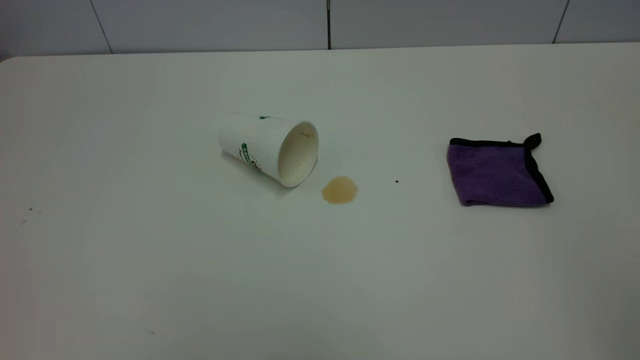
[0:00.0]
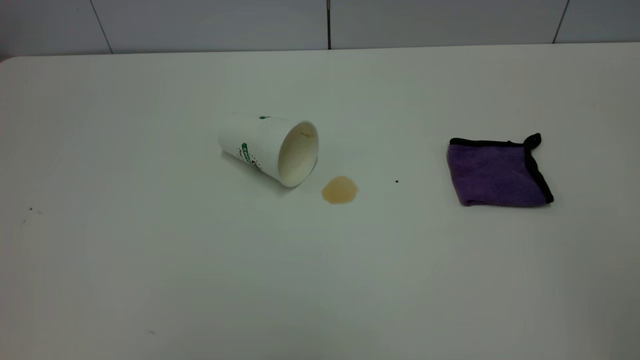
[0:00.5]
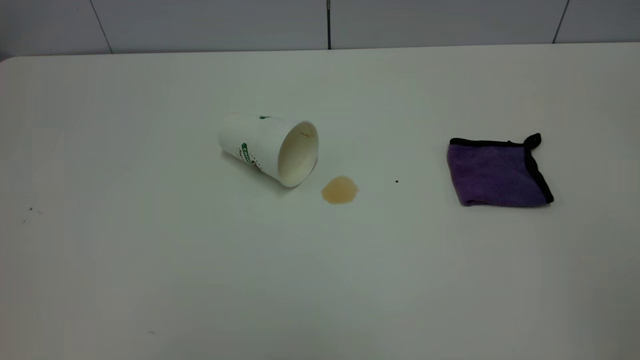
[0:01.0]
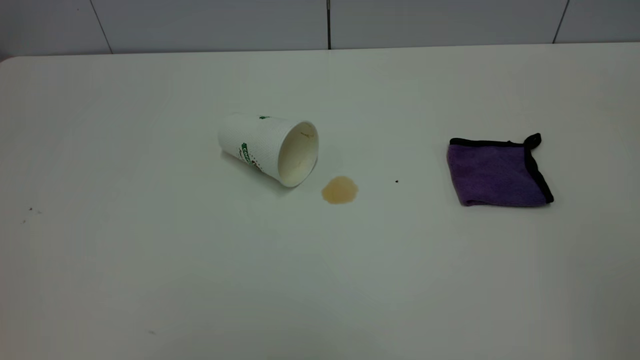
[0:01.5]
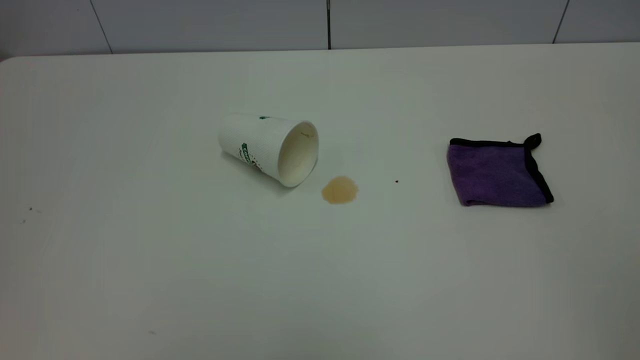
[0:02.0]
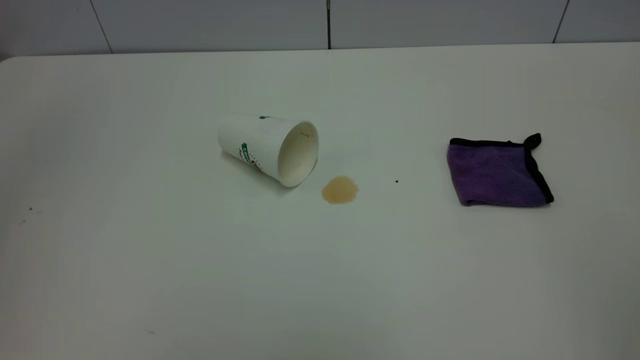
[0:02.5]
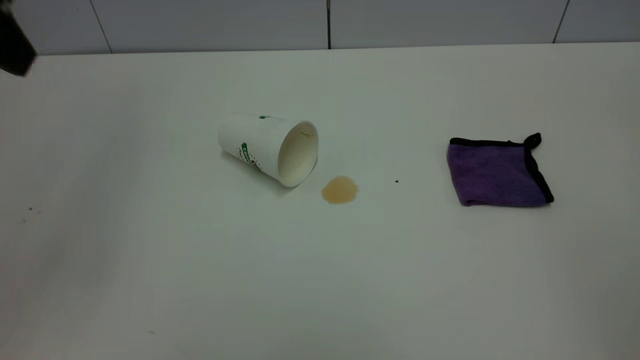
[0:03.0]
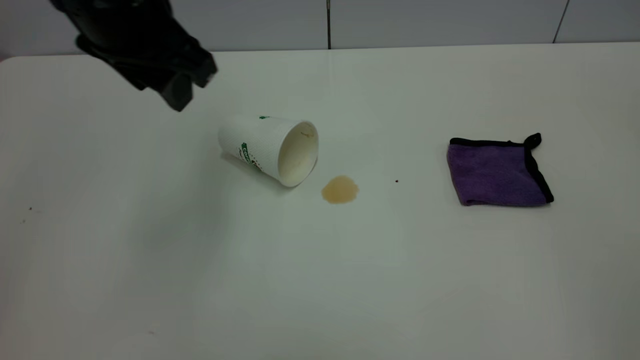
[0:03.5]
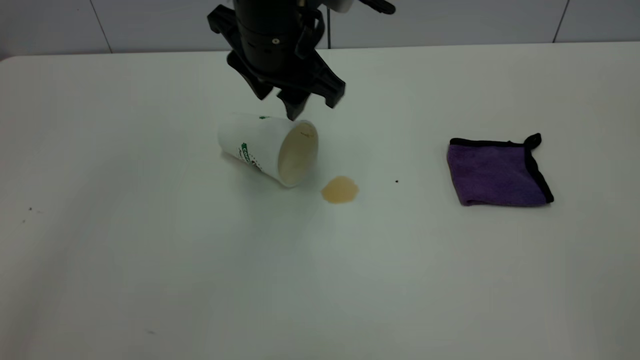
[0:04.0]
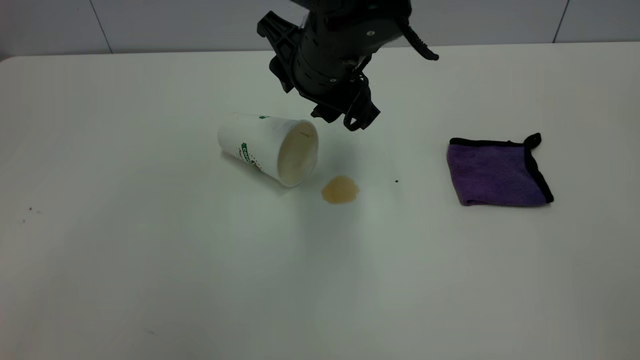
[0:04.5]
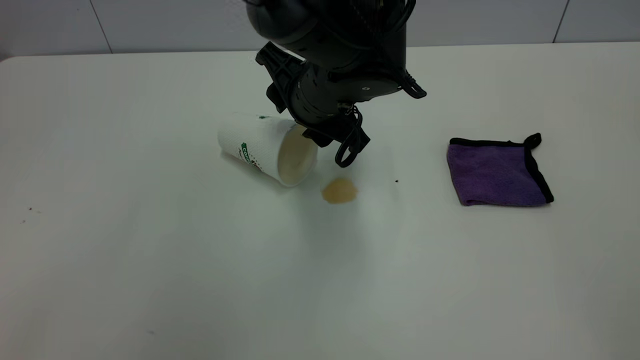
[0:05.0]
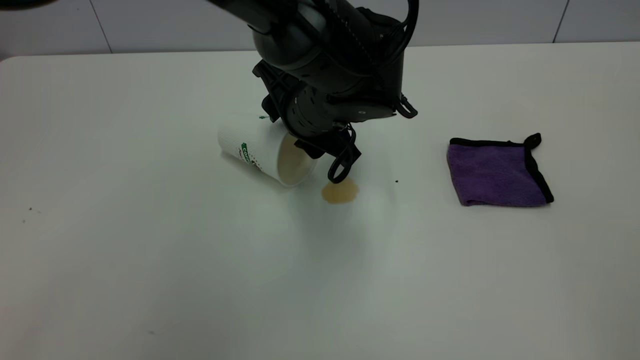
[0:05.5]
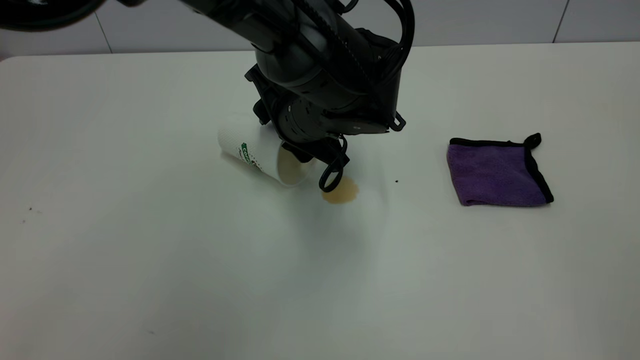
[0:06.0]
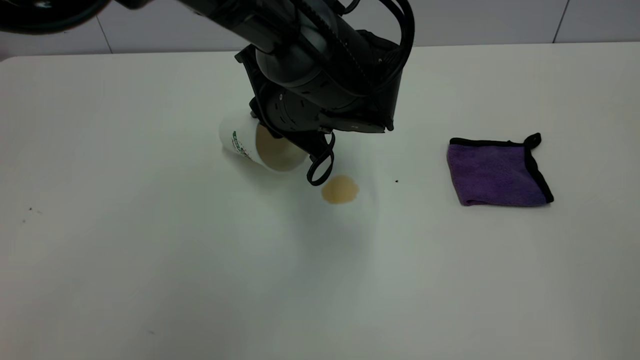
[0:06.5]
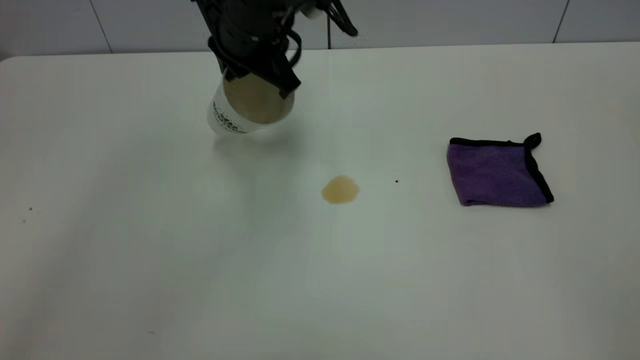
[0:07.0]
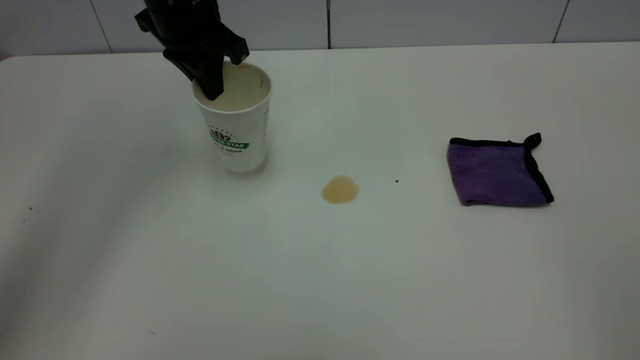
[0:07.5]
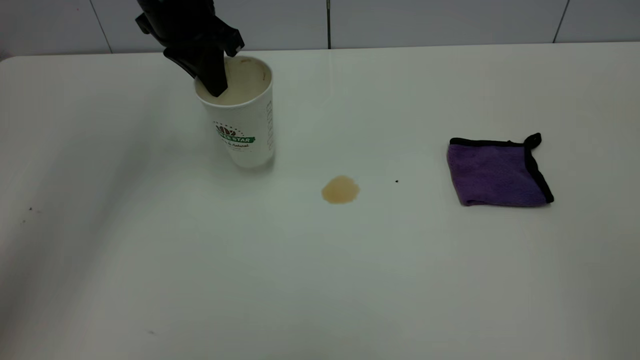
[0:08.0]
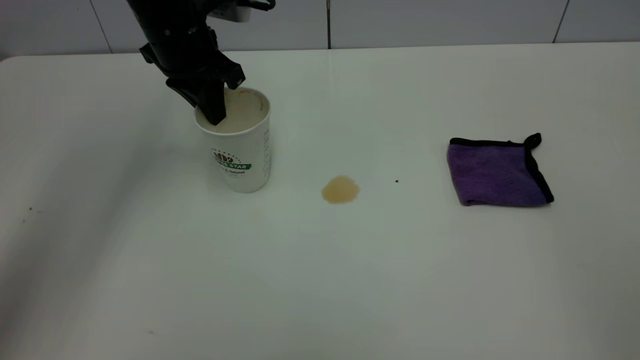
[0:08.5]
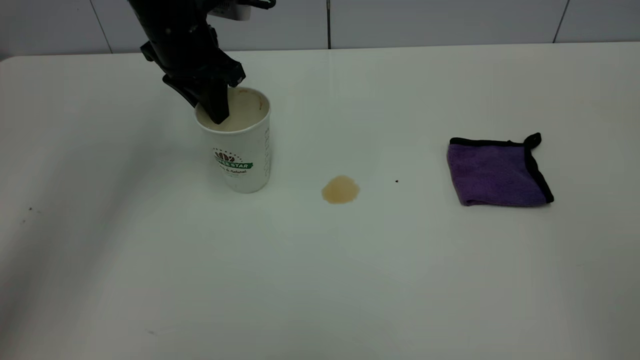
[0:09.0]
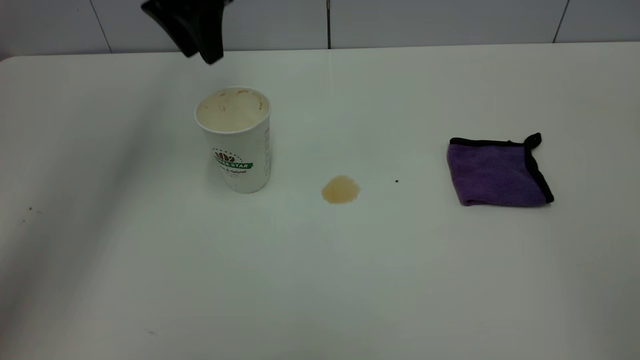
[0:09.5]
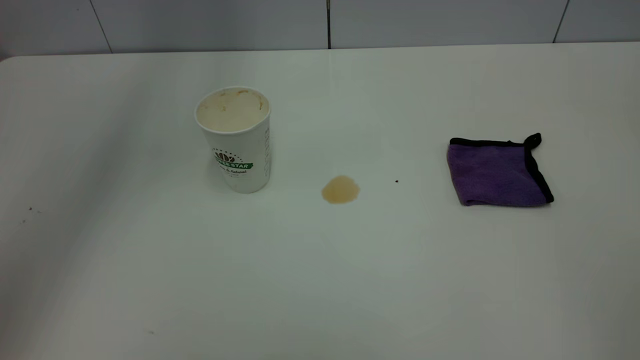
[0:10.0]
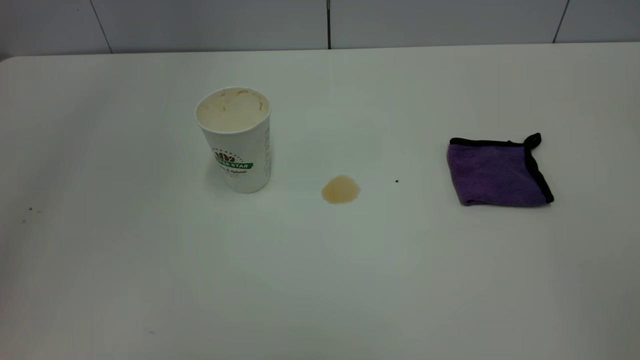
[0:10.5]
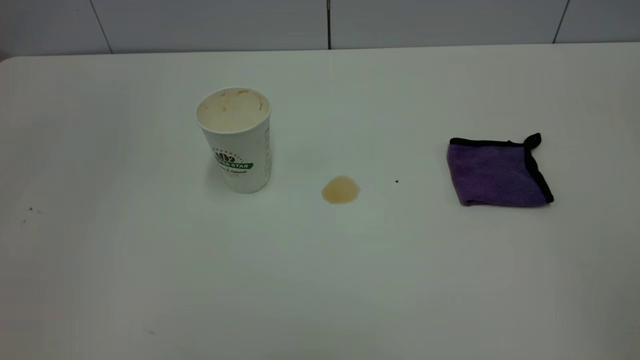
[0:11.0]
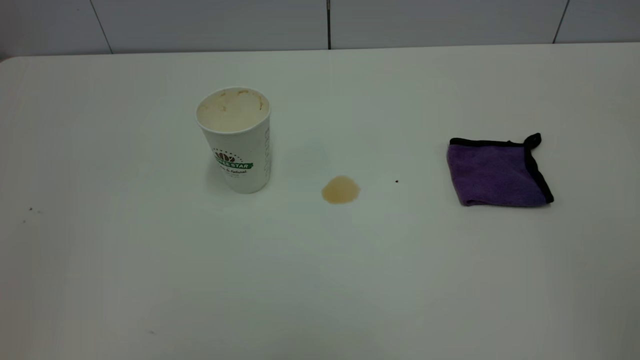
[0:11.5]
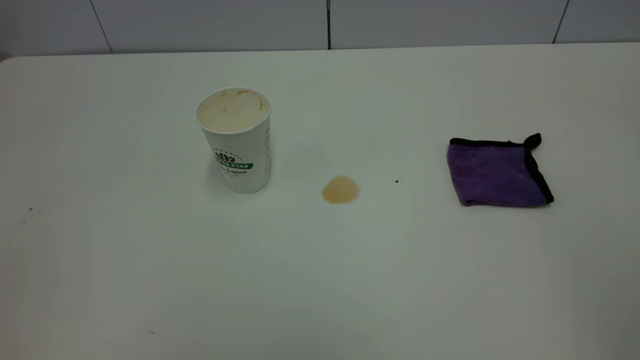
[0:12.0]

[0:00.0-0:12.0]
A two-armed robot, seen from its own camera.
Task of the whole recording: the left gripper pick up the fallen cup and place it upright, the right gripper grasp the purple rag and wipe the tea stain on the table, the right gripper put the purple rag back in its original position.
Step, 0:00.0 to 0:09.5: Stand the paper cup upright.
0:02.0 to 0:04.0: The left gripper is displaced forward, to the right and downward by about 50 cm.
0:04.0 to 0:06.0: The left gripper heads downward, covering some 10 cm.
0:06.0 to 0:08.0: The left gripper shifts approximately 20 cm to the left, upward and forward, and closes.
0:08.0 to 0:10.0: The left gripper moves upward, some 25 cm, and opens its fingers.
0:10.0 to 0:12.0: The left gripper heads backward, covering approximately 40 cm.

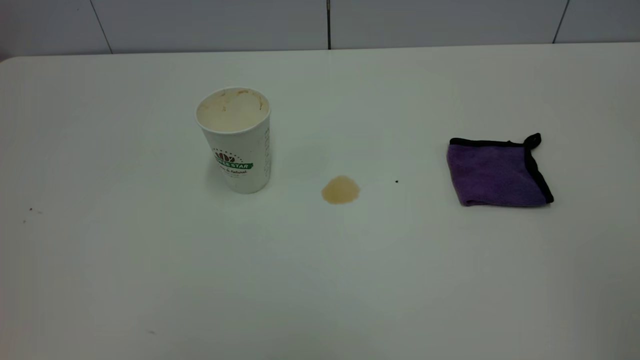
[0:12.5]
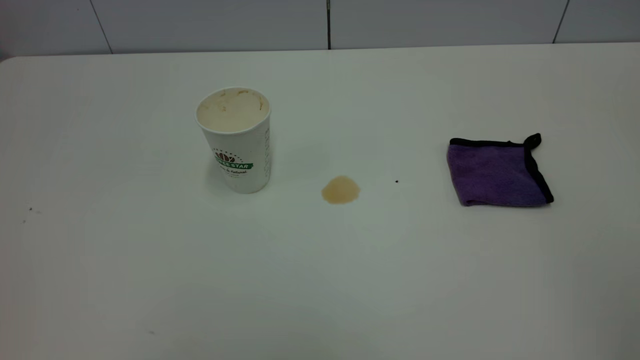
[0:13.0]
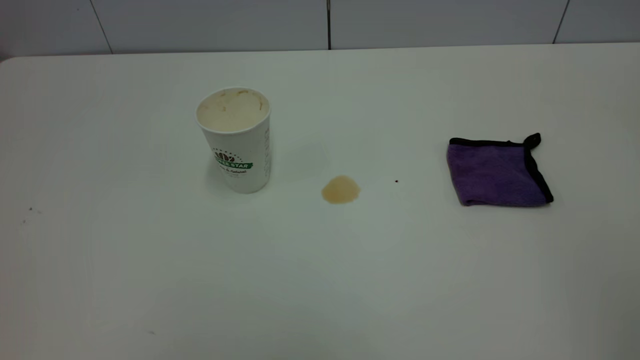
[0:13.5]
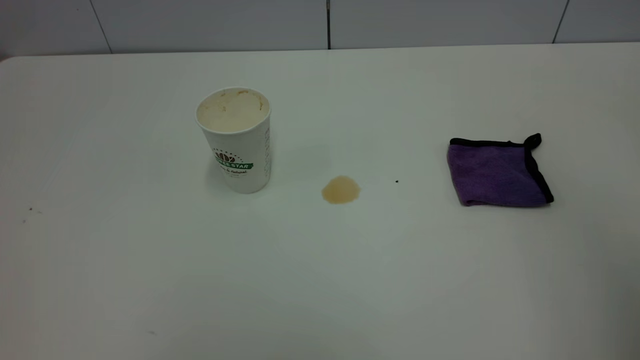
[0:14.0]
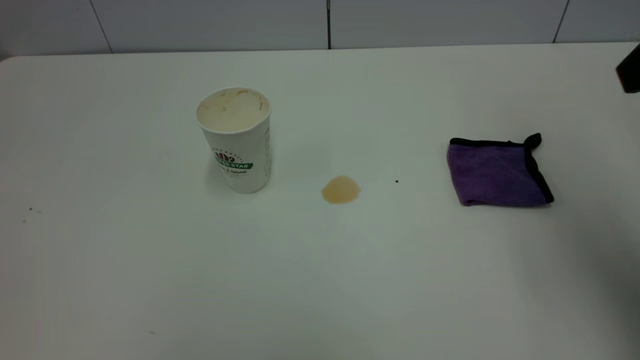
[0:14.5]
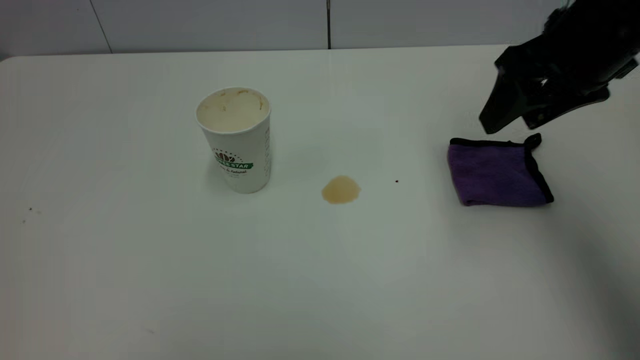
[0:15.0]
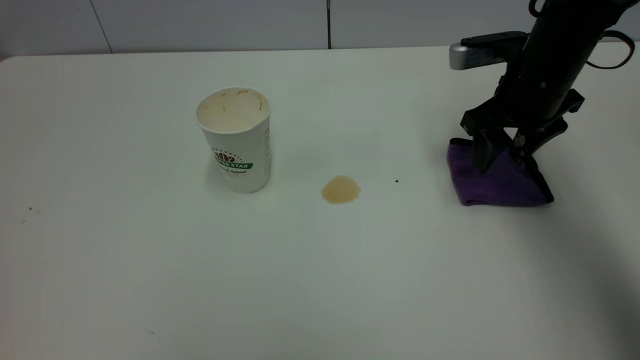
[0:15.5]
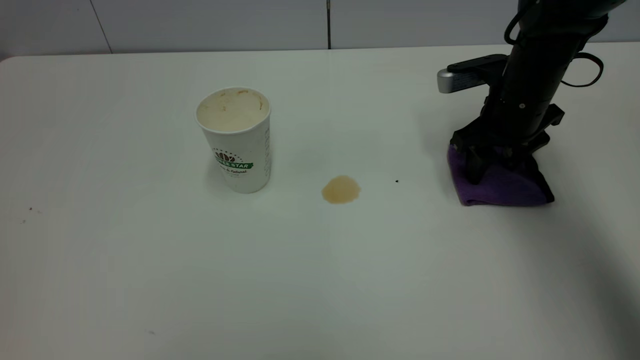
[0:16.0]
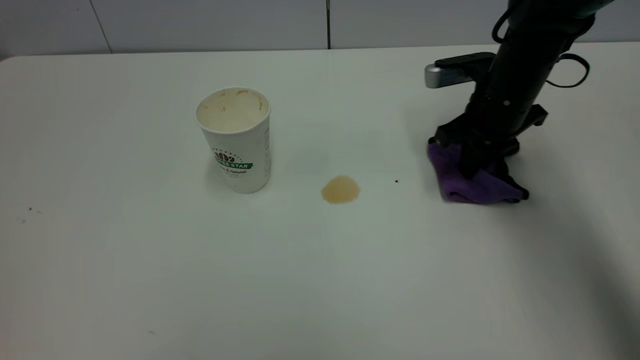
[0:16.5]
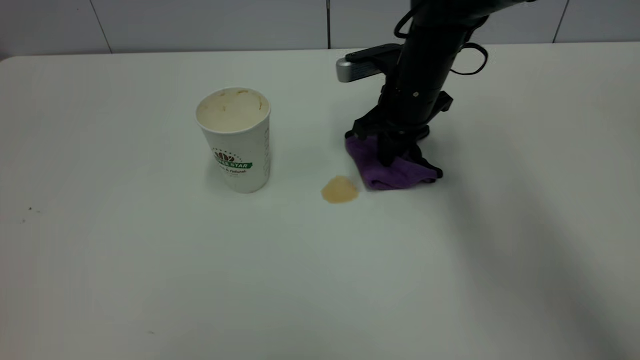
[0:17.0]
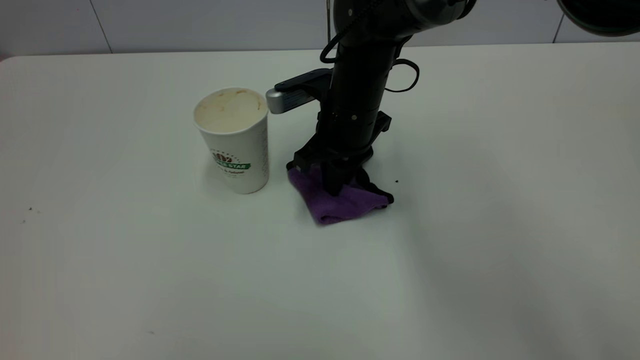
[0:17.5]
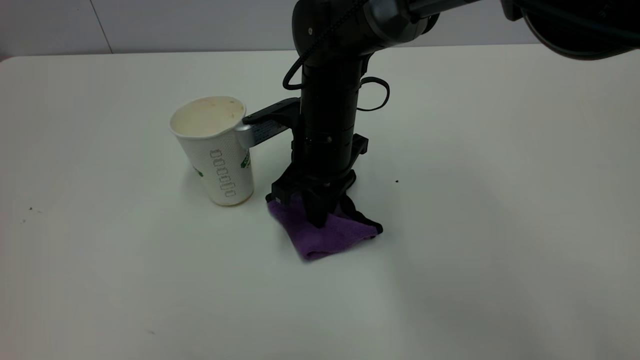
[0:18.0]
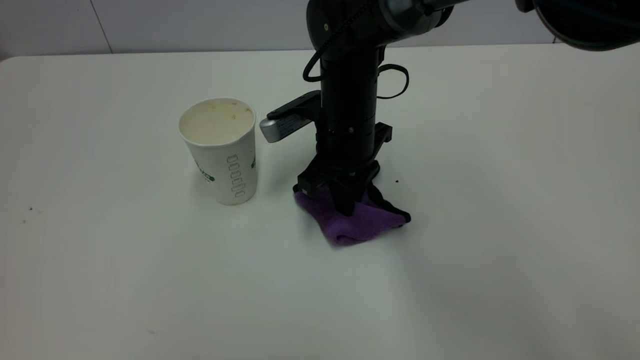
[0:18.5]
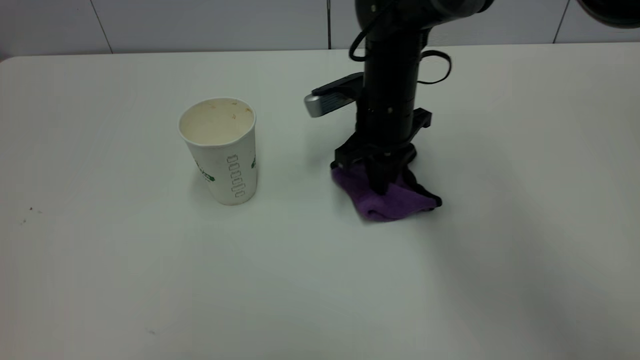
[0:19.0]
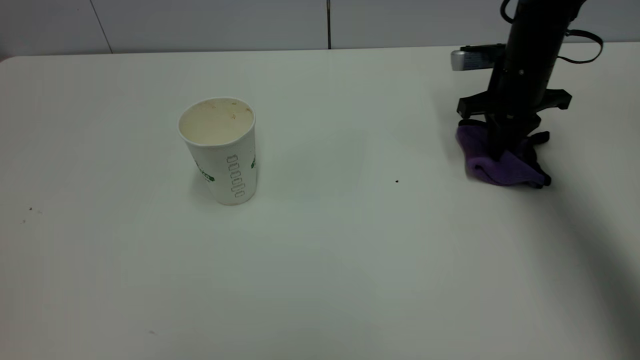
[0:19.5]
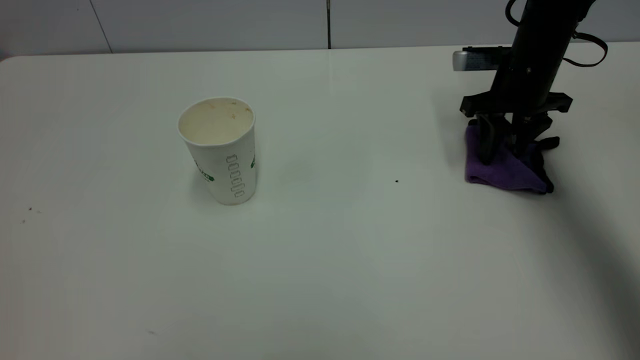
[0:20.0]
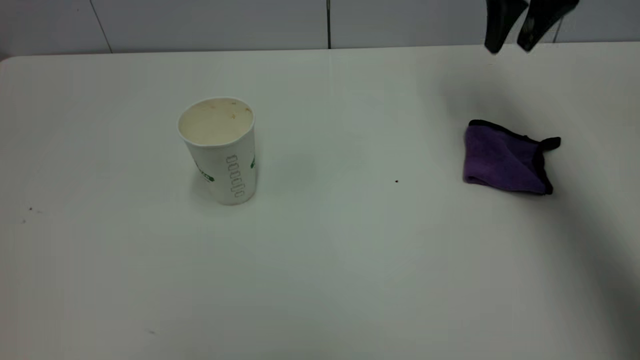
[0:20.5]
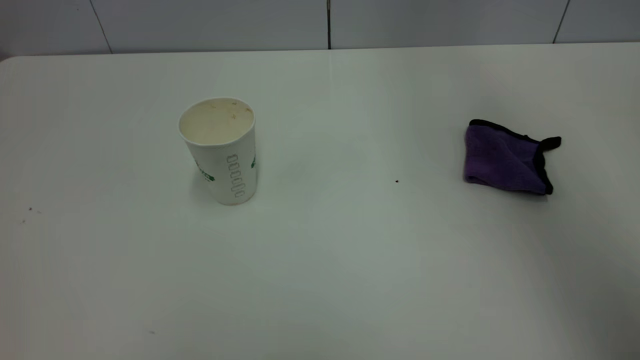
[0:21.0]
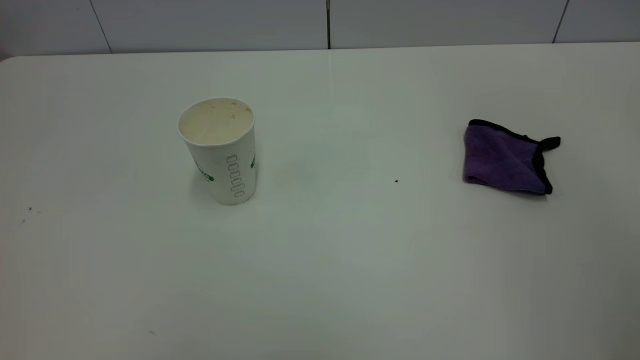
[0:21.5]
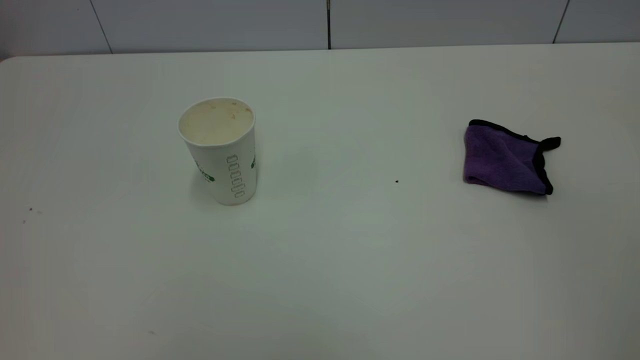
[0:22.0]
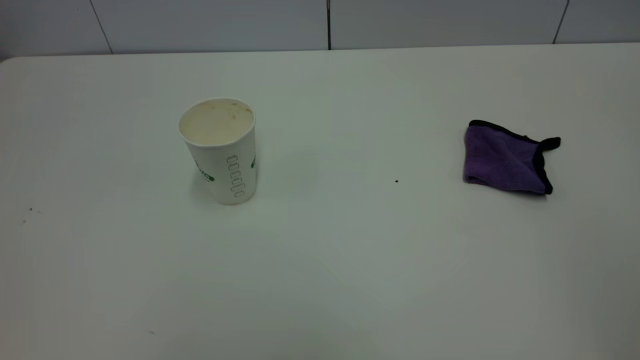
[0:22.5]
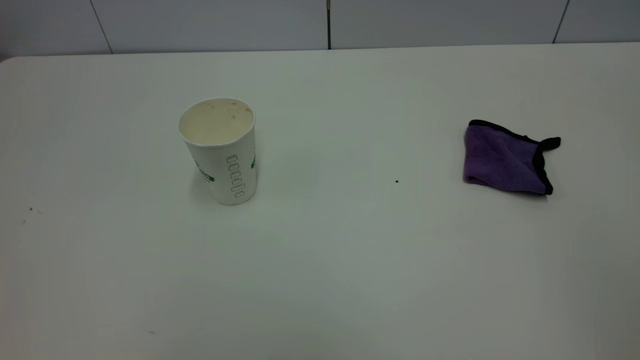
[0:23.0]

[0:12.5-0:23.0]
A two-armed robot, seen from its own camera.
Task of the whole recording: the left gripper pick up the fallen cup and place it upright, the right gripper grasp the purple rag and wipe the tea stain on the table, the right gripper put the purple rag back in its original position.
Step, 0:12.5 to 0:20.0: Wipe the stains off the table with a rag.
0:12.5 to 0:14.5: The right gripper heads forward, covering approximately 25 cm.
0:14.5 to 0:16.5: The right gripper goes about 30 cm downward, forward and to the left, and closes.
0:16.5 to 0:19.0: The right gripper goes roughly 10 cm to the left.
0:19.0 to 0:21.0: The right gripper travels upward by some 40 cm, and opens its fingers.
